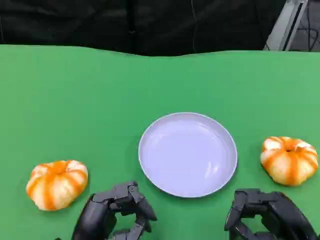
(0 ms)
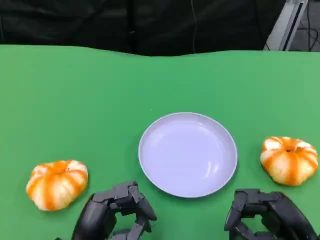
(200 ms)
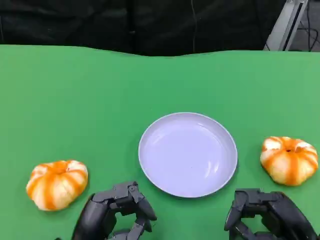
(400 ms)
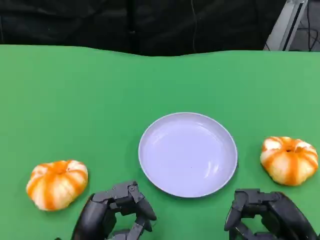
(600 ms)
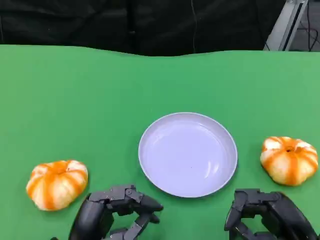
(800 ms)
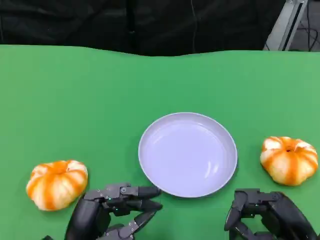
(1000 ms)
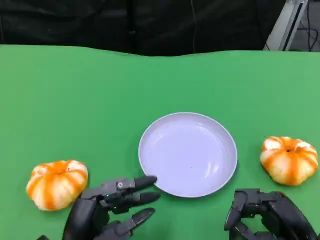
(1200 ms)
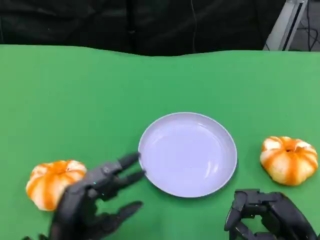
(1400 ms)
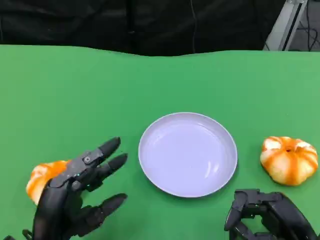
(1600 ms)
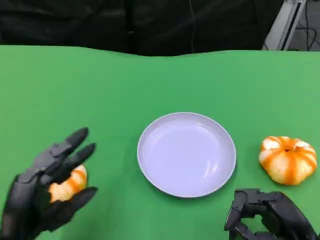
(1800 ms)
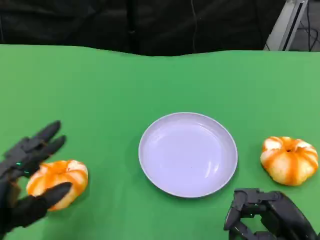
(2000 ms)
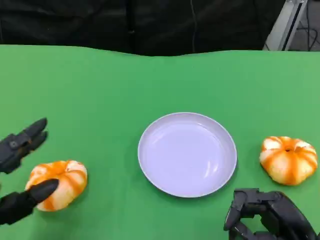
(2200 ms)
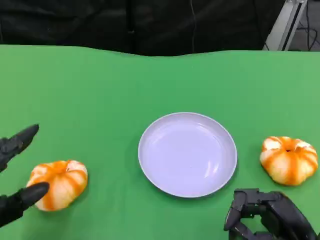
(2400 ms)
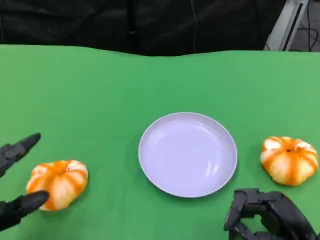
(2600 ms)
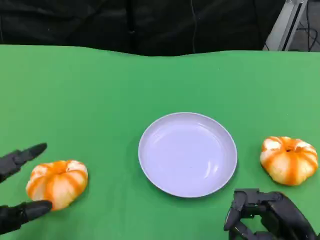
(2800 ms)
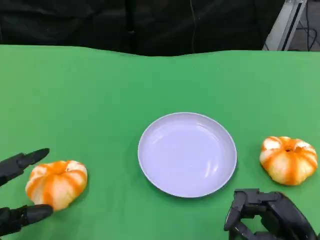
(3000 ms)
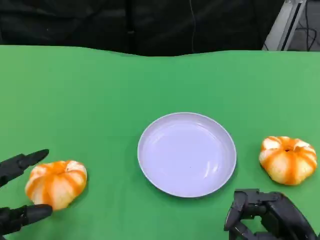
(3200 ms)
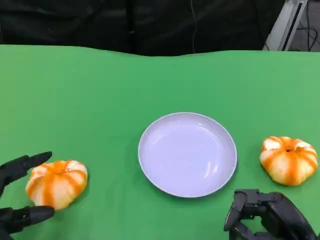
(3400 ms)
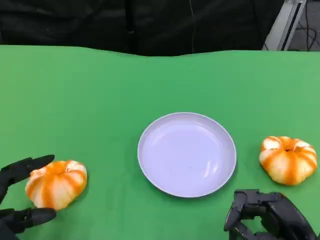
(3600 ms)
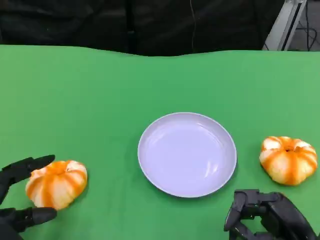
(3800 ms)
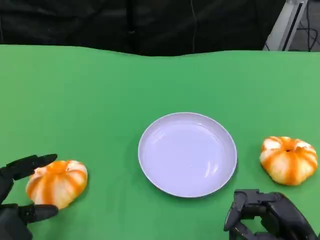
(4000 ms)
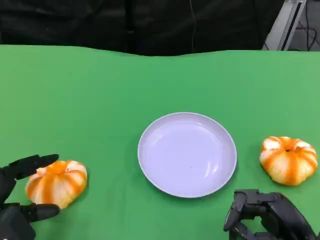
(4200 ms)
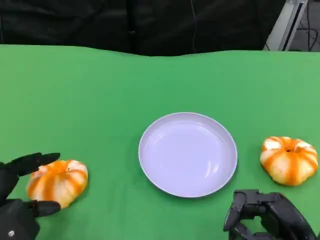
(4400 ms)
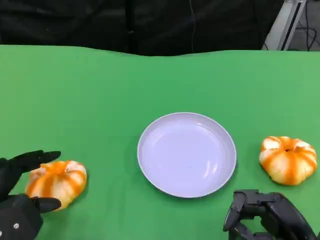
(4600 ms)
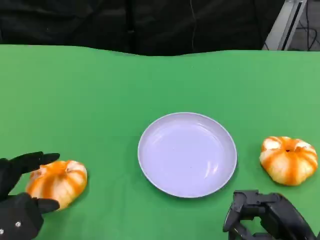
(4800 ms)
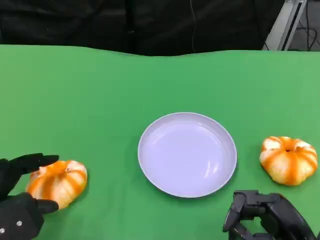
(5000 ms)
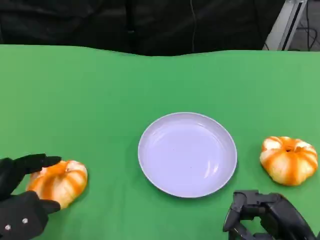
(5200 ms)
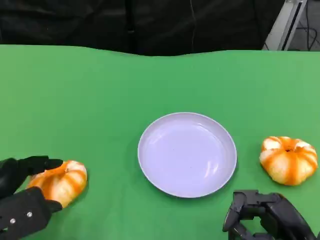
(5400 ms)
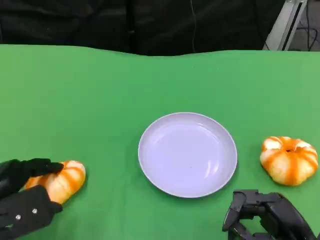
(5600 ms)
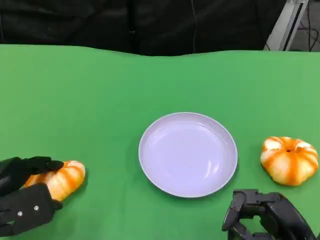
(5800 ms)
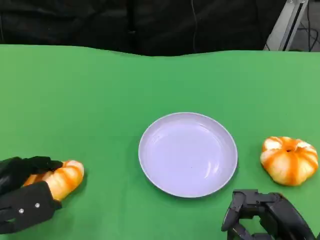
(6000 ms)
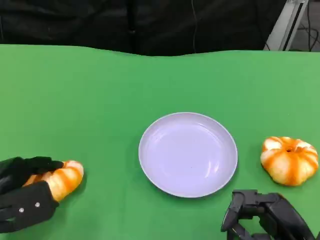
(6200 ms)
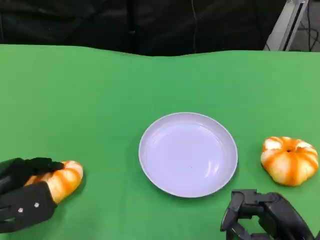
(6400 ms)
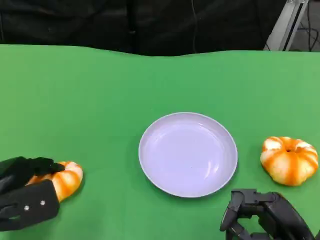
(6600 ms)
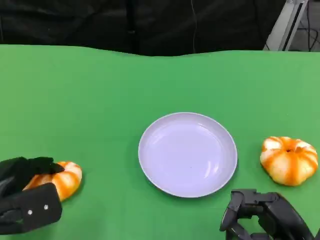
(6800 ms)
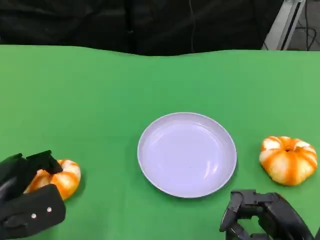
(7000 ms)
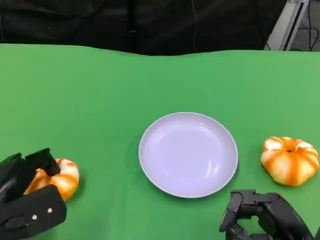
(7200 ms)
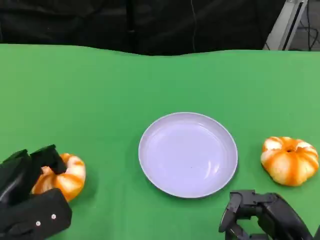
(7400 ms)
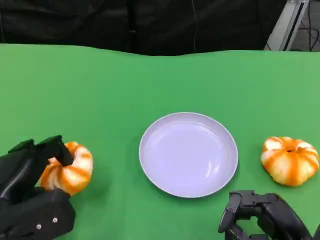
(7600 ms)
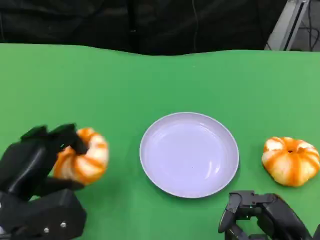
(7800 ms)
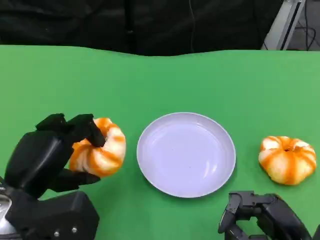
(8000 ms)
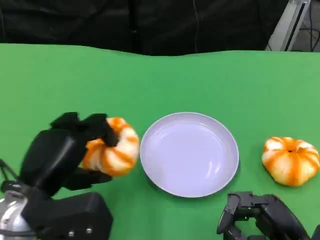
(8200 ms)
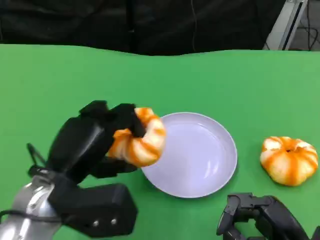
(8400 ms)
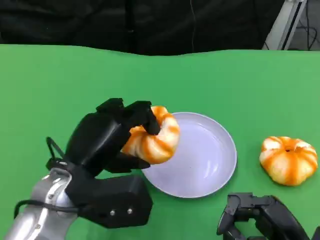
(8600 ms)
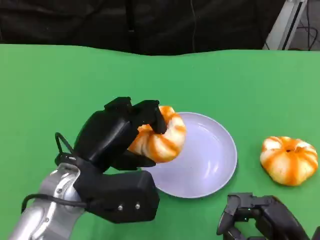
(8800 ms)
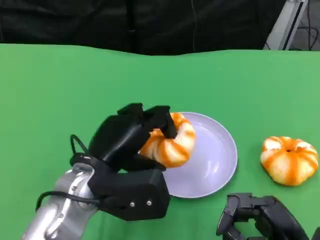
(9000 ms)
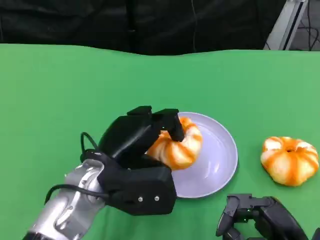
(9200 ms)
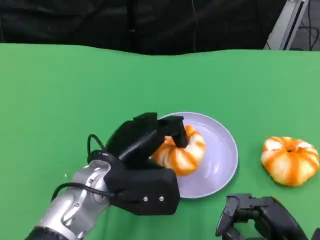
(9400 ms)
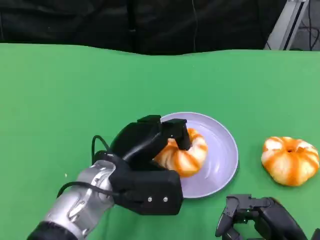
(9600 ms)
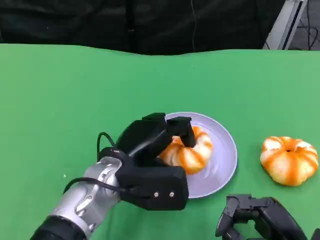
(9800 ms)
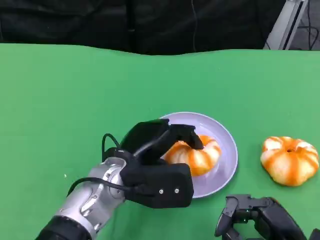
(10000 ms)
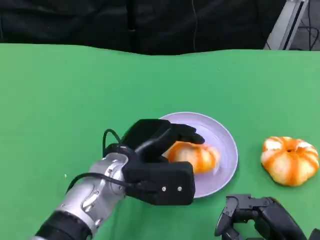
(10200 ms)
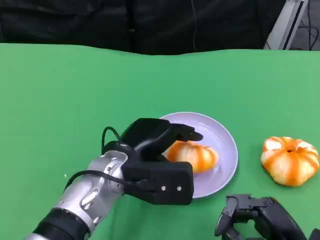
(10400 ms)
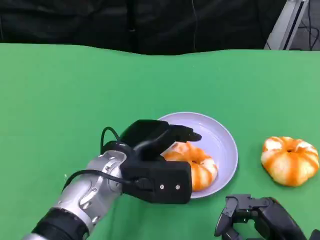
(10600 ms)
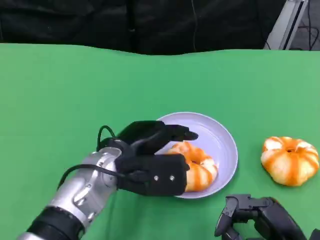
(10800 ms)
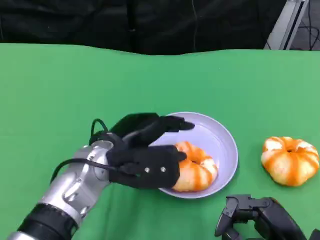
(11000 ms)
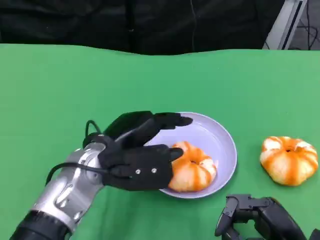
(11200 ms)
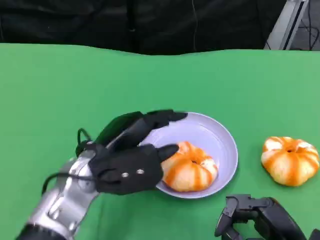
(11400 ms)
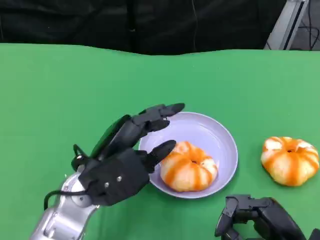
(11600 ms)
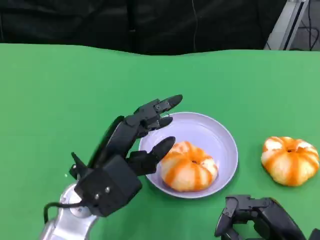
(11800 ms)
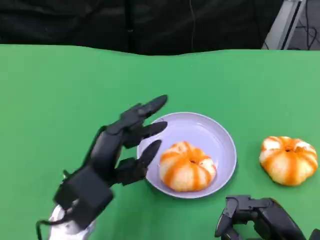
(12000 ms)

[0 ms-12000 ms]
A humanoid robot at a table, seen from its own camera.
Task of the whole recording: Grasp the bread from the table and place it into the plate.
0 ms to 1600 ms: The hands make only small movements.
1600 ms to 3000 ms: The left hand travels to the left by approximately 10 cm.
3000 ms to 4400 ms: There are only small adjustments of the hands.
4400 ms to 7600 ms: The hands make only small movements.
7600 ms to 9000 ms: The left hand moves to the right, some 15 cm.
9000 ms to 10400 ms: The hands stay close to where they were, moving slightly.
10400 ms to 12000 ms: The left hand heads to the left and backward, covering approximately 10 cm.

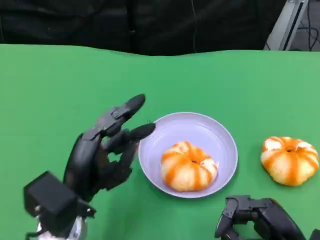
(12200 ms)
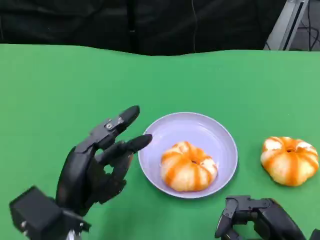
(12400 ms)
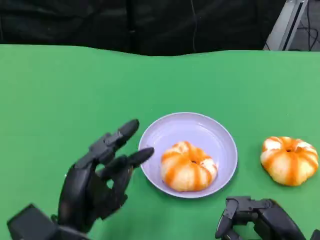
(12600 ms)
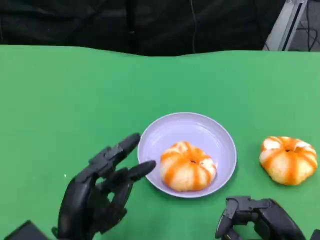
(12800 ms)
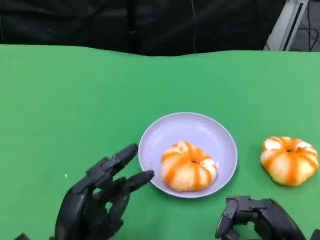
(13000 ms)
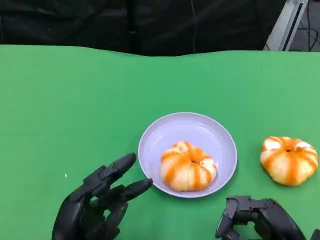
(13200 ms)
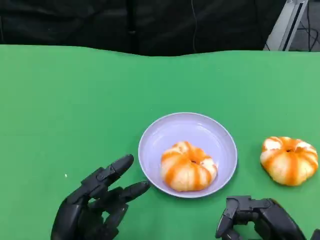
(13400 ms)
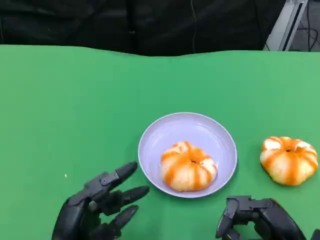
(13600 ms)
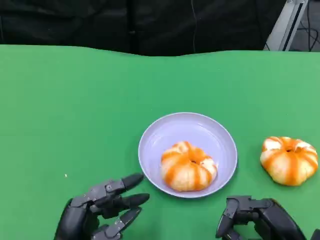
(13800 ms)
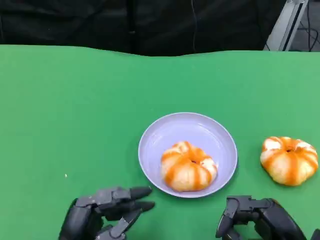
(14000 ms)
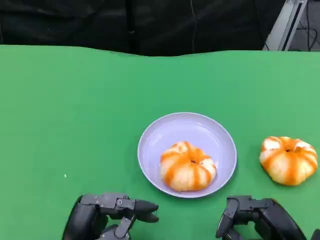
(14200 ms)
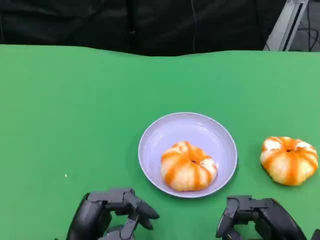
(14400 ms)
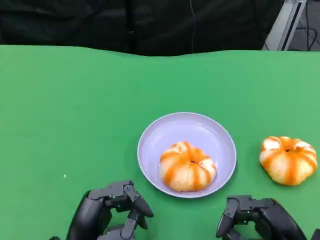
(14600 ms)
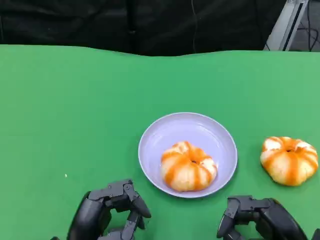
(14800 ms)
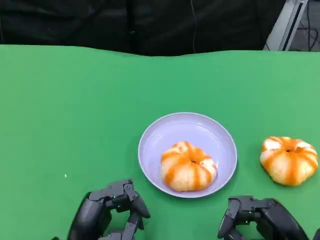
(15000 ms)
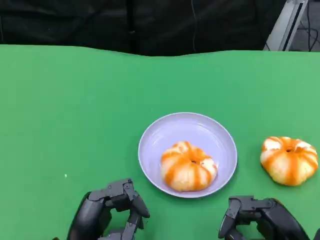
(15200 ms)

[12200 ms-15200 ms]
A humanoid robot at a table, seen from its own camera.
Task of the whole recording: Grasp the bread from the table and place it into the plate.
12200 ms to 13800 ms: The left hand goes about 10 cm backward and downward.
13800 ms to 15200 ms: The hands move only a little.

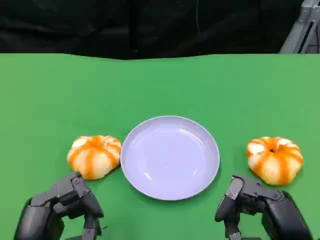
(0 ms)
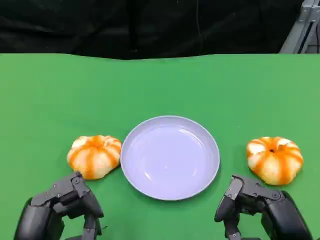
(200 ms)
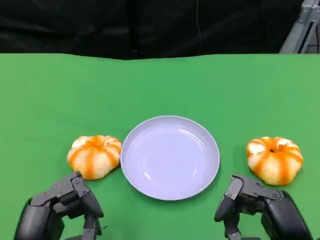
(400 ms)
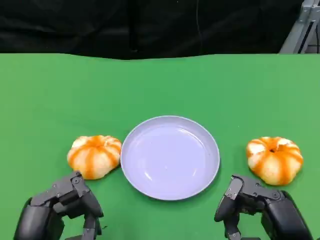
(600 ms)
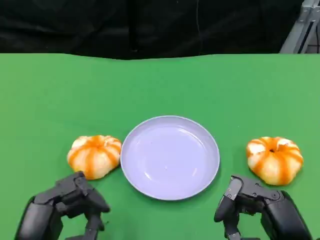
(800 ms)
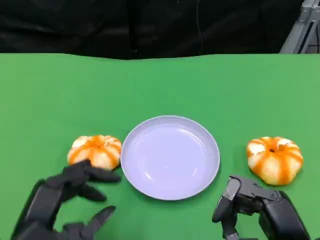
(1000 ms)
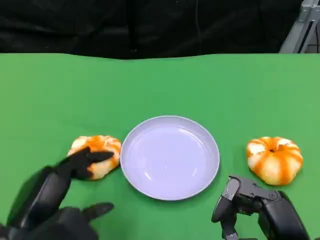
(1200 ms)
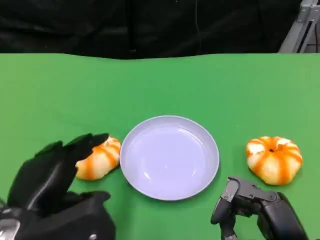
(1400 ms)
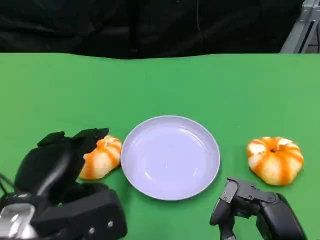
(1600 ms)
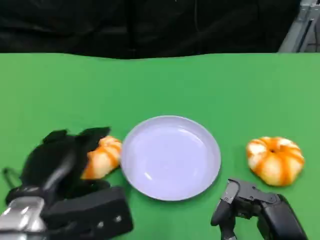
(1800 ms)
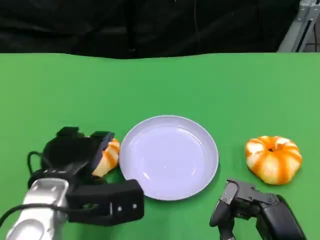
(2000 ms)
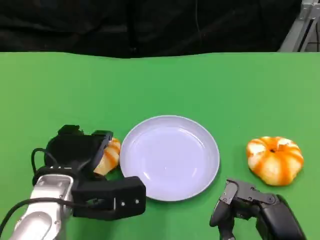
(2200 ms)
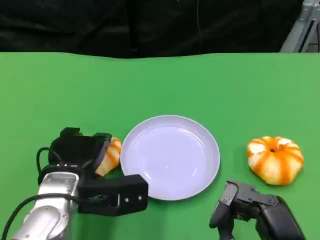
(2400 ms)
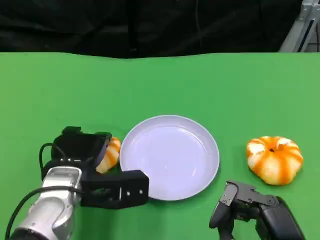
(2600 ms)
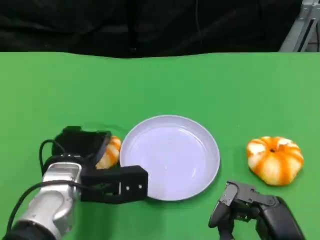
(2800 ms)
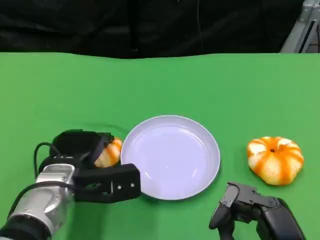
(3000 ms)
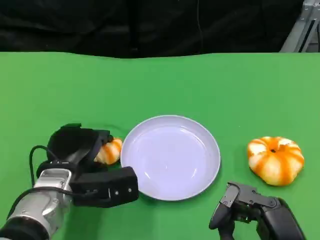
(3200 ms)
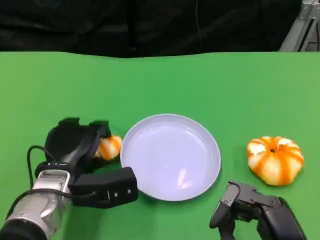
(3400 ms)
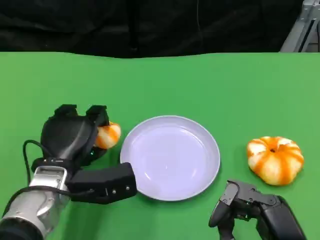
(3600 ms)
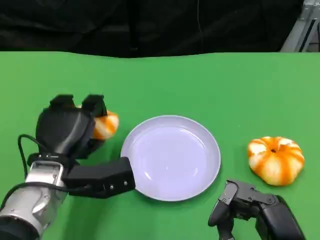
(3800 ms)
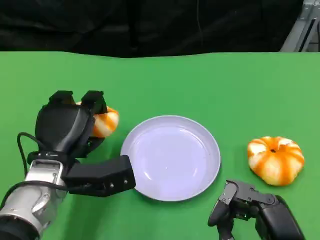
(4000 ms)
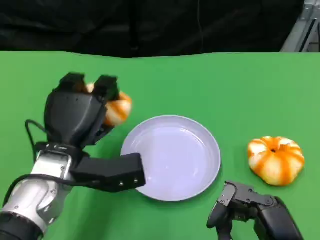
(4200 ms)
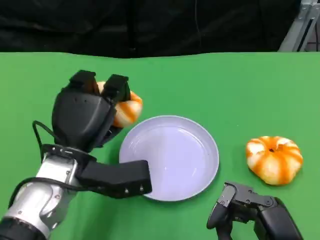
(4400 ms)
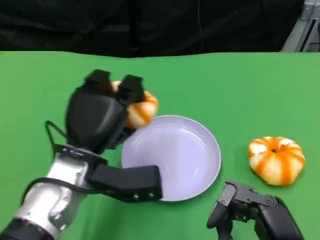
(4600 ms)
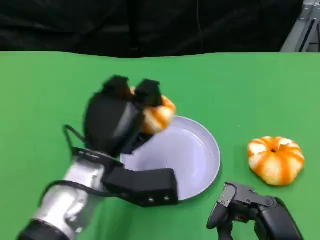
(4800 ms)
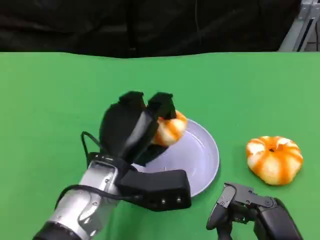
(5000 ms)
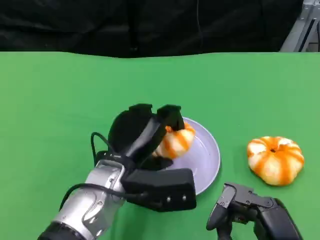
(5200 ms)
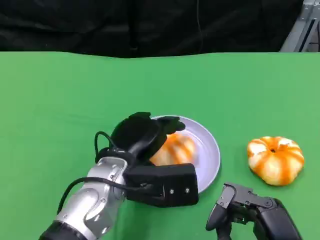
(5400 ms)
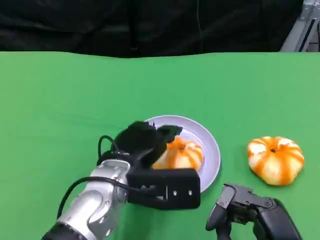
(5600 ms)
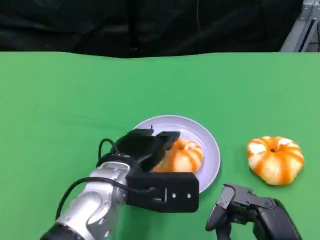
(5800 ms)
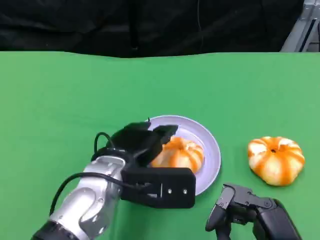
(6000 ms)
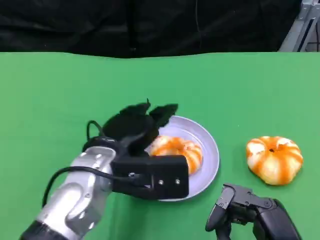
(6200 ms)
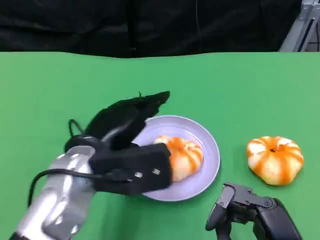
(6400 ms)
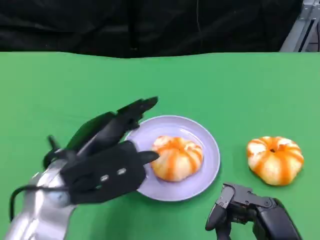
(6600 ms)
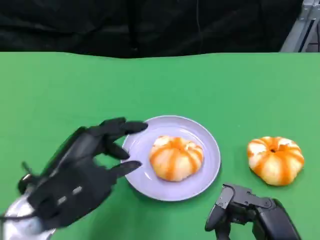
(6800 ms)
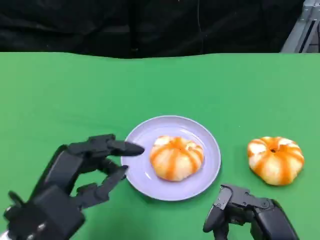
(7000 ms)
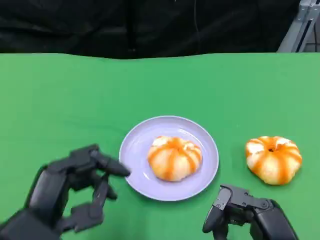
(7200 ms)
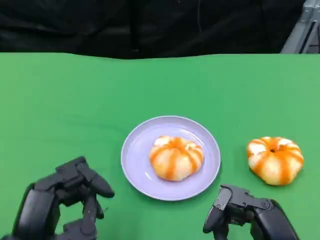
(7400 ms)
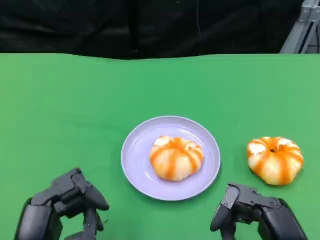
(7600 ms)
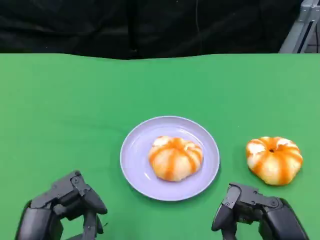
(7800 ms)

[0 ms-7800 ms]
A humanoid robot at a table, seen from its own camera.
Task of the whole recording: Grasp the bread from the table and place it into the plate.
0 ms to 1600 ms: The left hand goes about 5 cm forward.
1600 ms to 3200 ms: The left hand travels forward and downward by roughly 10 cm.
3200 ms to 4600 ms: The left hand travels upward by some 5 cm.
6200 ms to 7800 ms: The left hand is displaced backward and to the left by some 15 cm.
